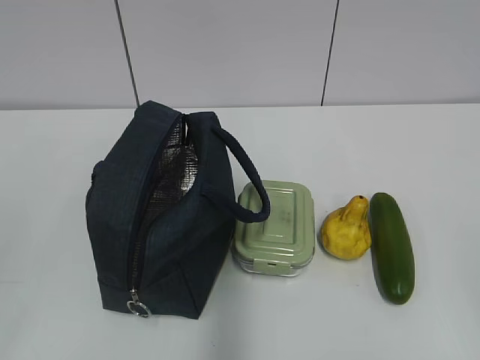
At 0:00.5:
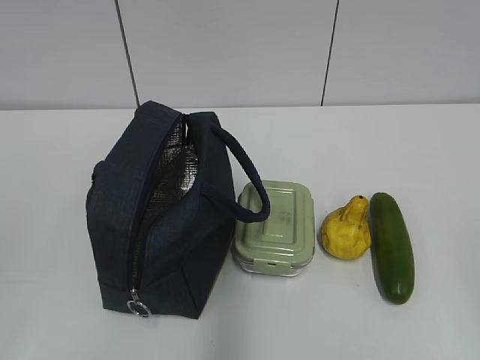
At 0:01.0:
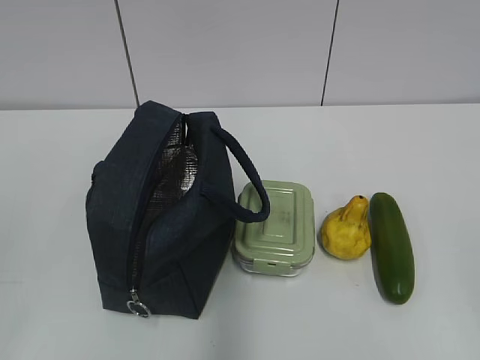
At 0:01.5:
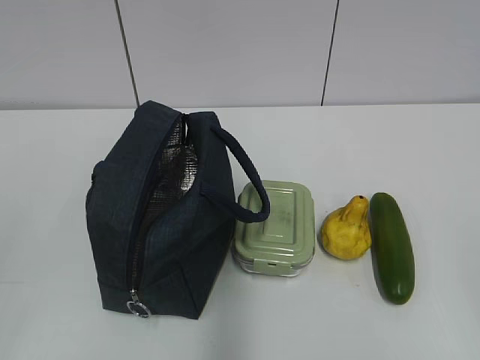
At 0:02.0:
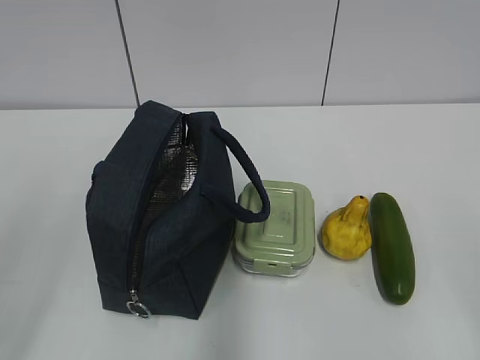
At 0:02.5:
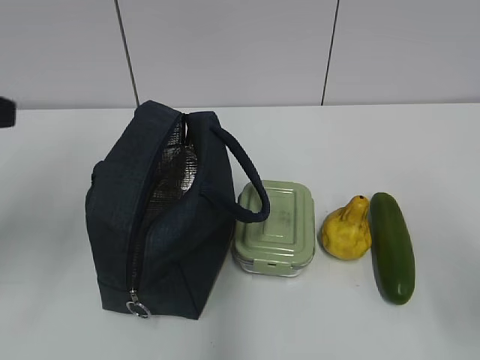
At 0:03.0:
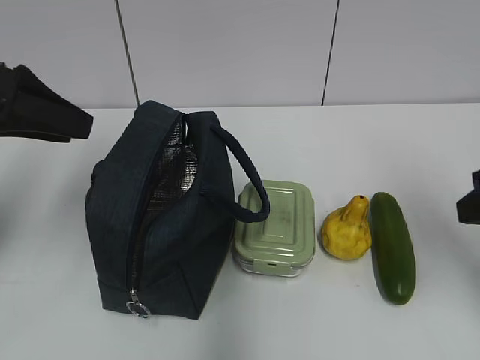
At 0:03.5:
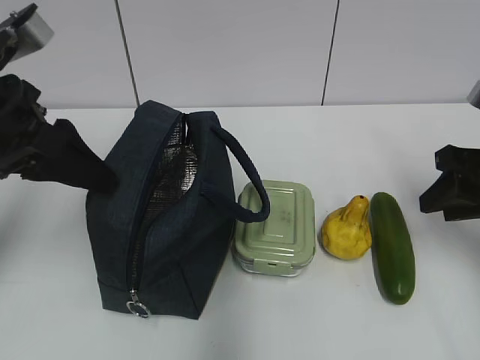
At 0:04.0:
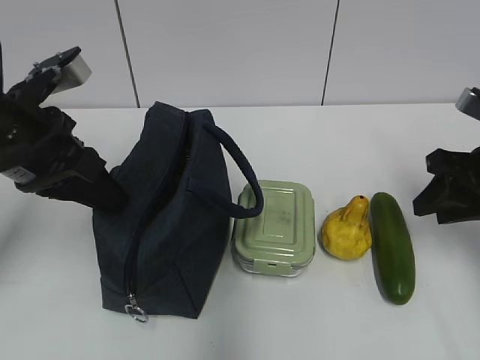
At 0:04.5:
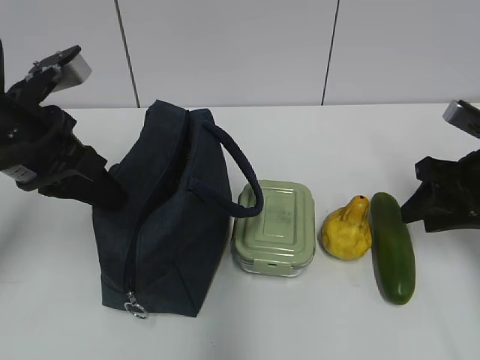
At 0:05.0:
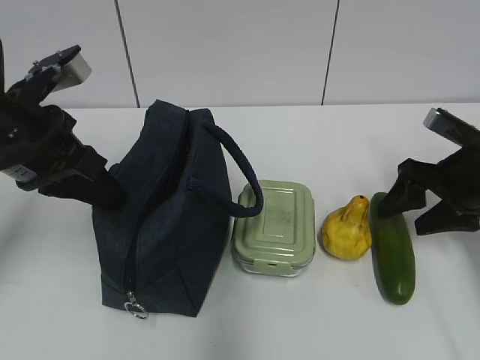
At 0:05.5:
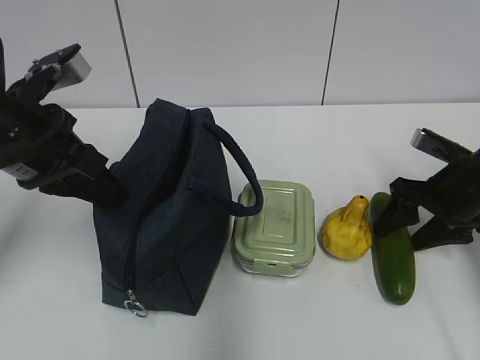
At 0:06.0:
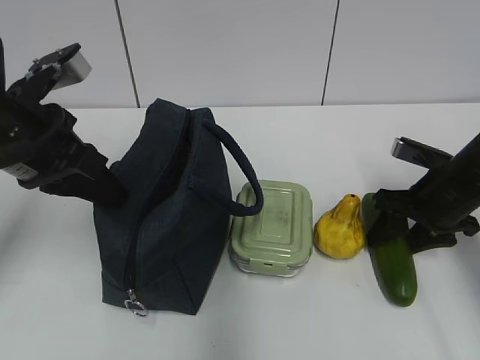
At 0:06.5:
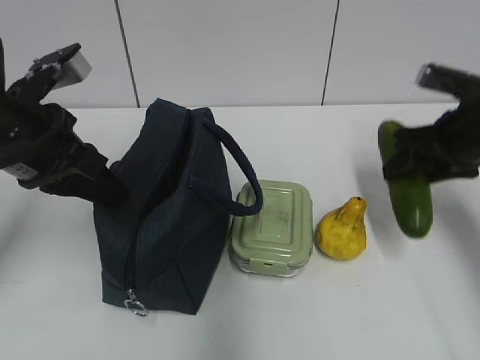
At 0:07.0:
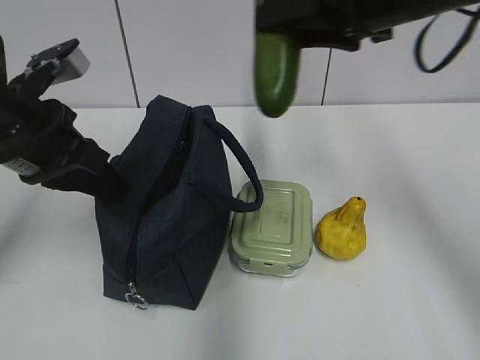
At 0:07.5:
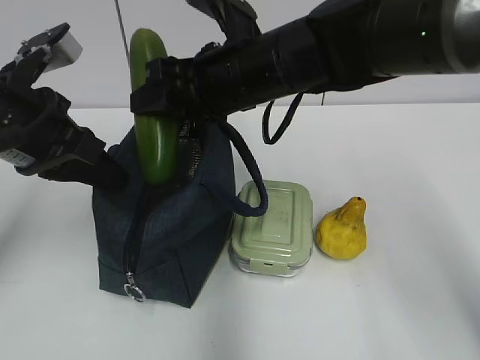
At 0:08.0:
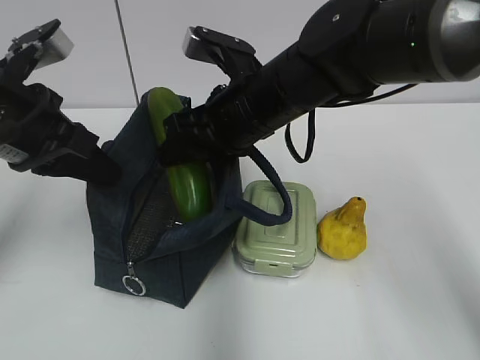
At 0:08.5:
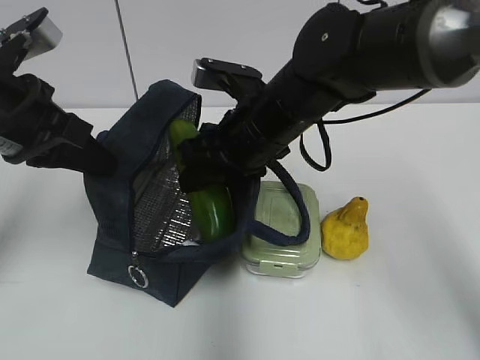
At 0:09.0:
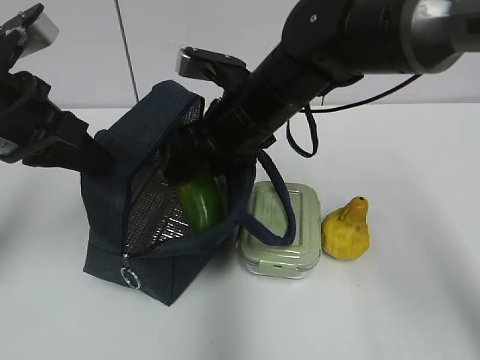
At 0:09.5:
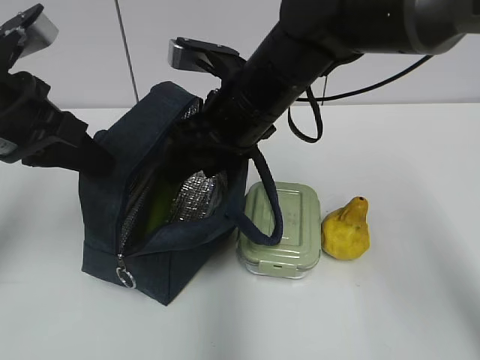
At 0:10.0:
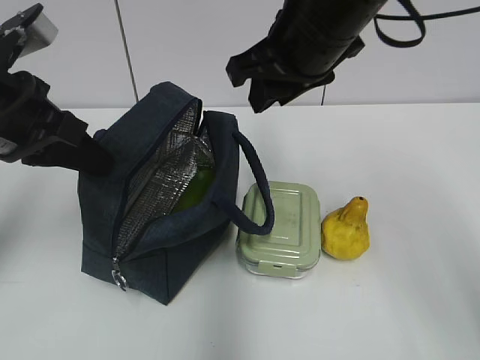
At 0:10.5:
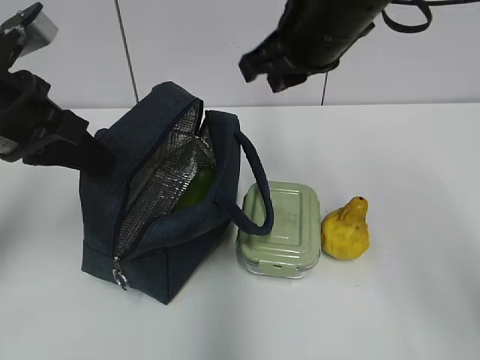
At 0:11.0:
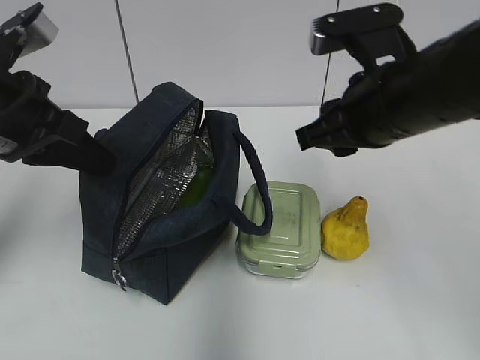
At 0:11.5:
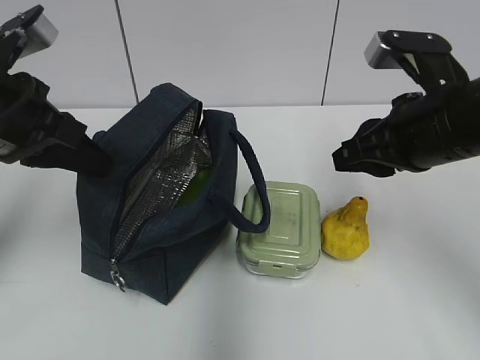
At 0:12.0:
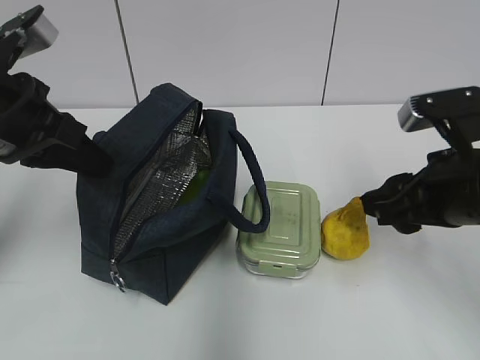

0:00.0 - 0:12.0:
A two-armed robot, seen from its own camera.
Step, 0:00.0 - 0:03.5: Grab the lunch bag with your left hand.
Step, 0:04.5 - 0:06.0: Grab the cucumber with your right hand.
Step, 0:06.5 - 0:09.0: Place it into the bag with your right hand.
0:02.0 - 0:04.0: The grippers both shift forward by approximately 25 cm. The left gripper closes its fingers.
0:04.0 - 0:06.0: The right gripper heads downward, covering about 10 cm.
0:06.0 - 0:08.0: The right gripper goes roughly 25 cm to the left and upward.
0:08.0 - 0:10.0: The right gripper is displaced upward and to the right by about 10 cm.
0:10.0 - 0:12.0: The right gripper moves to the right, downward and backward, approximately 20 cm.

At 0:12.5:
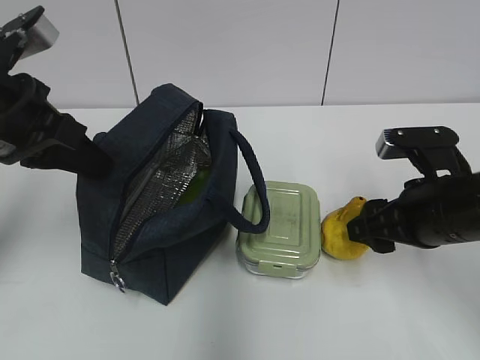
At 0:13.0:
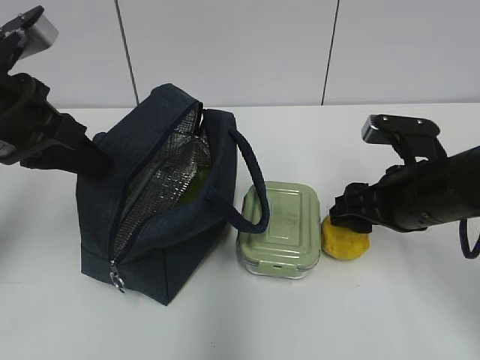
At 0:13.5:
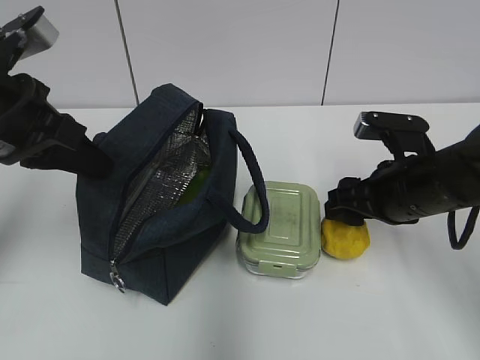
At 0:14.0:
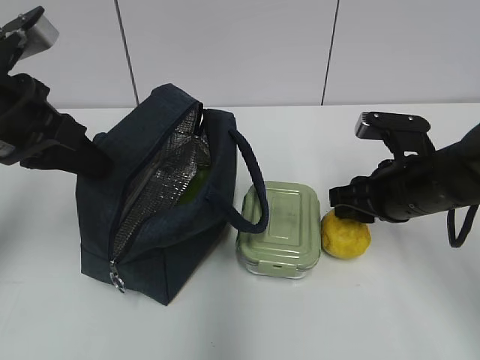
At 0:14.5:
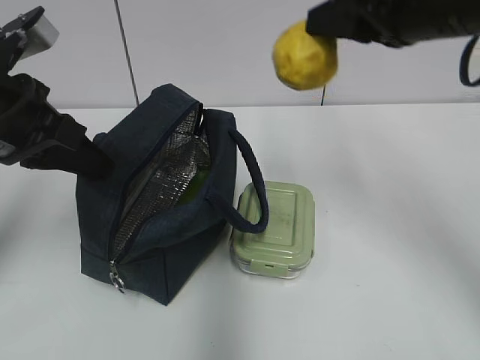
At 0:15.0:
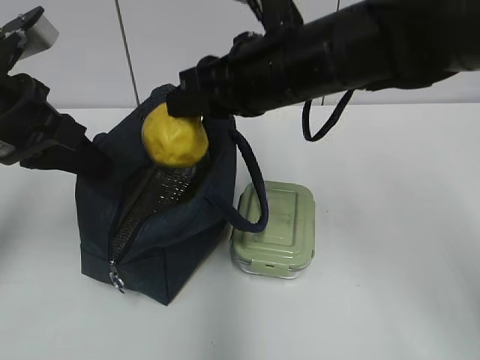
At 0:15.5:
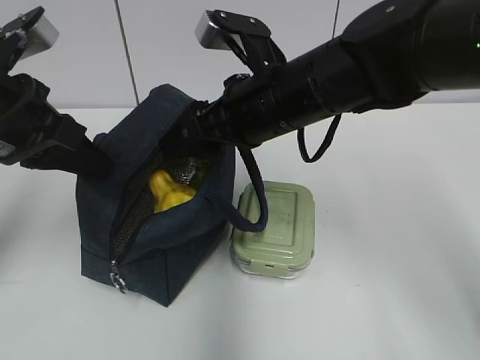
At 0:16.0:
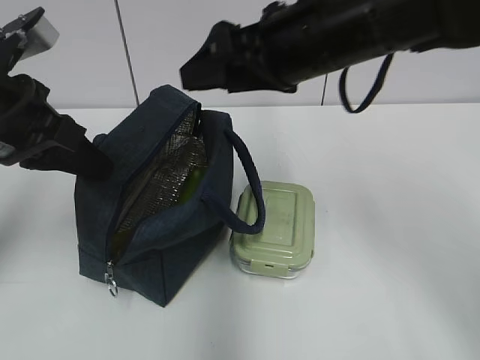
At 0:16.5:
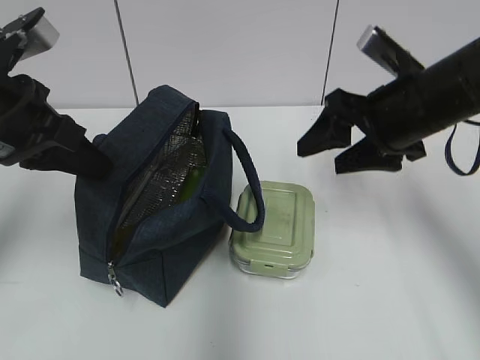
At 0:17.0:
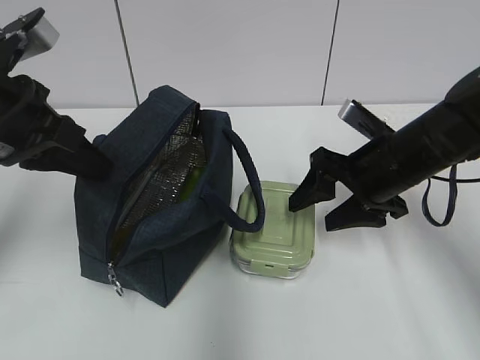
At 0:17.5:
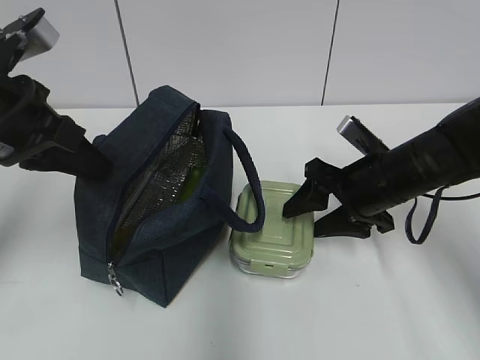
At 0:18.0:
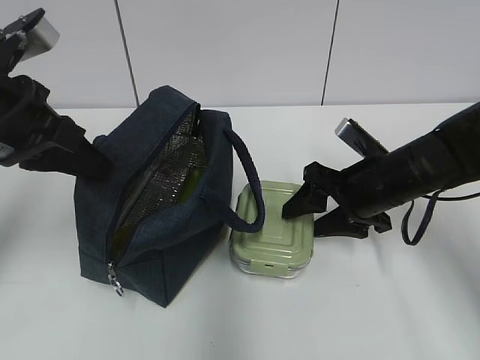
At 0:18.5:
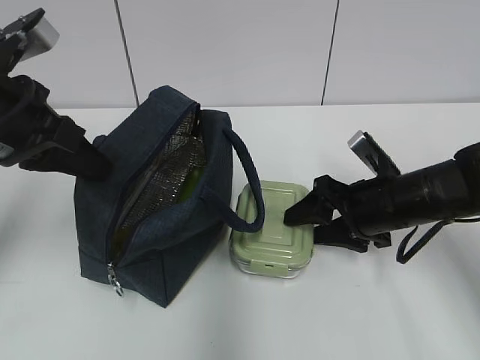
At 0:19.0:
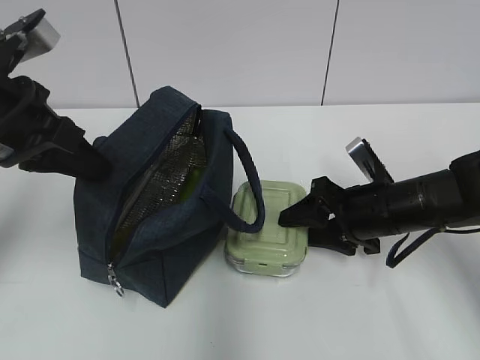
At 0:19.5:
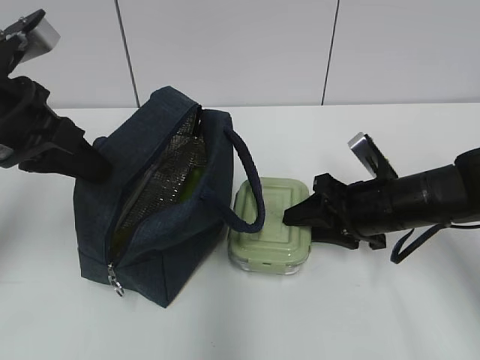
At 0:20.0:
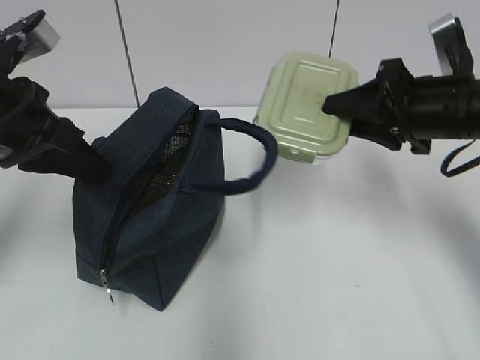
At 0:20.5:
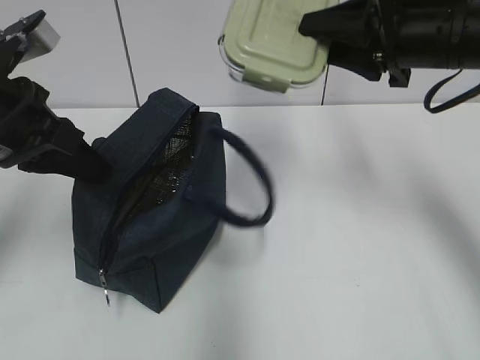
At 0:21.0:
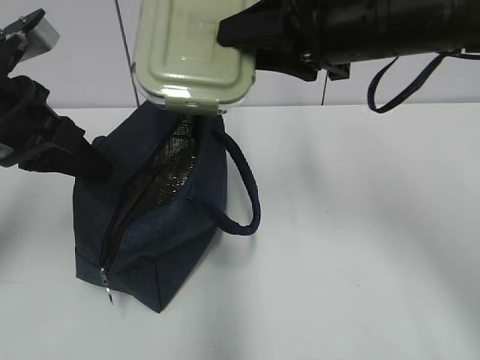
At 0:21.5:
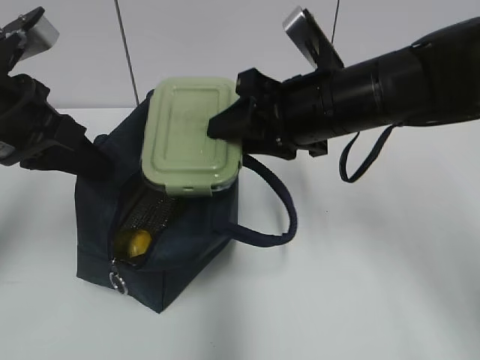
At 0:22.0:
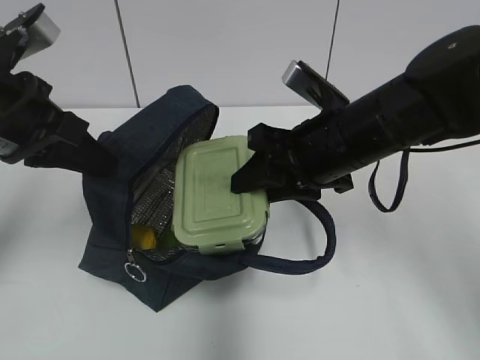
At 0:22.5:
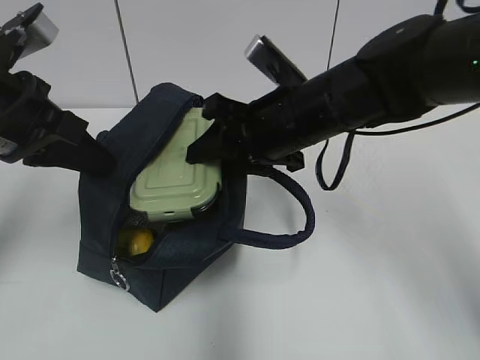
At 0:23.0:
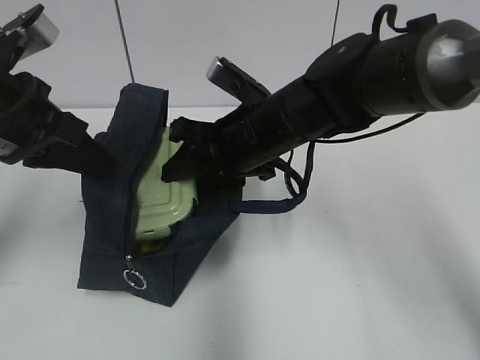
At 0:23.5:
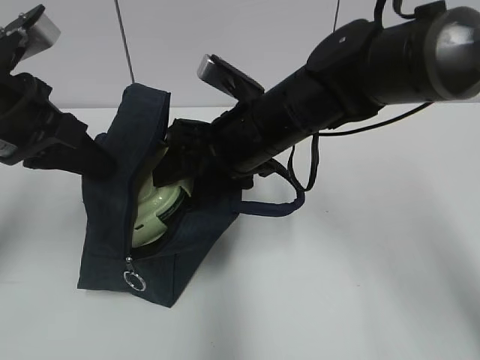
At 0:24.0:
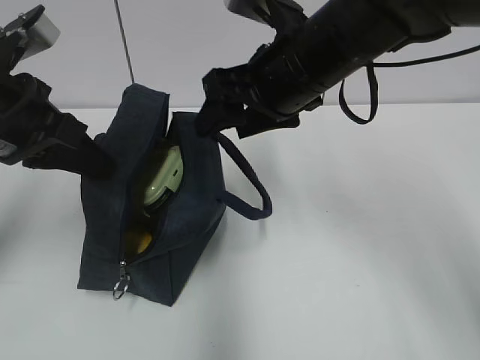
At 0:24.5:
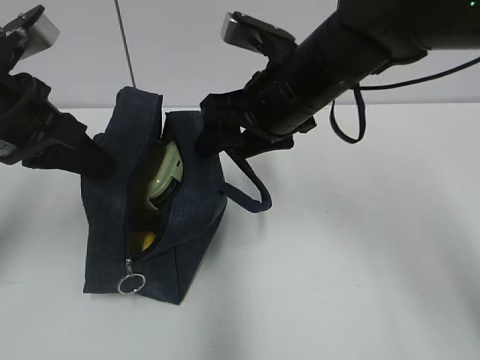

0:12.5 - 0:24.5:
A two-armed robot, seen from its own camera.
Step, 0:14.5 - 0:15.5: Place it into the bag with your right hand.
Step, 0:16.0 - 0:19.5: Grab the lunch box with your right hand.
0:12.5 - 0:14.5: The right gripper shifts about 20 cm upward, and closes its fingers.
0:14.5 - 0:16.5: The right gripper moves downward, some 10 cm, reaches some 10 cm to the left, then returns, and opens its fingers.
0:16.5 - 0:18.5: The right gripper travels downward by about 10 cm.
0:18.5 - 0:20.5: The right gripper goes approximately 20 cm upward.
0:20.5 - 0:22.5: The right gripper goes some 15 cm to the left and downward.

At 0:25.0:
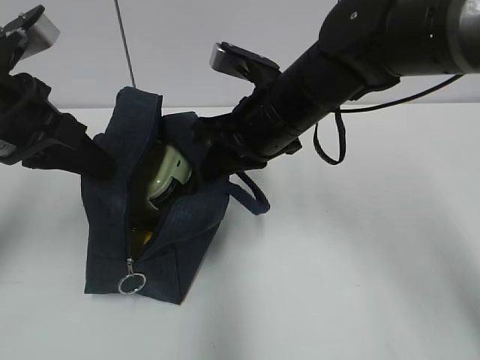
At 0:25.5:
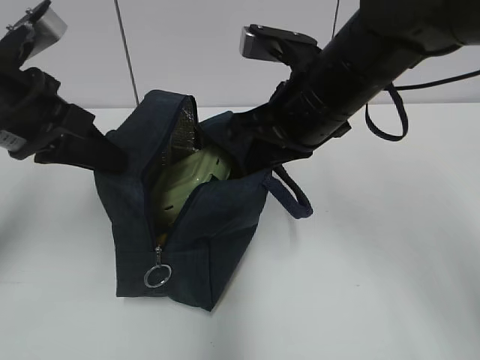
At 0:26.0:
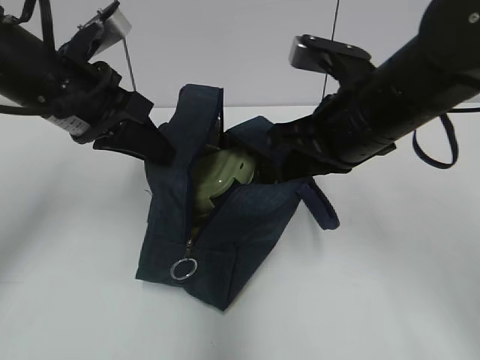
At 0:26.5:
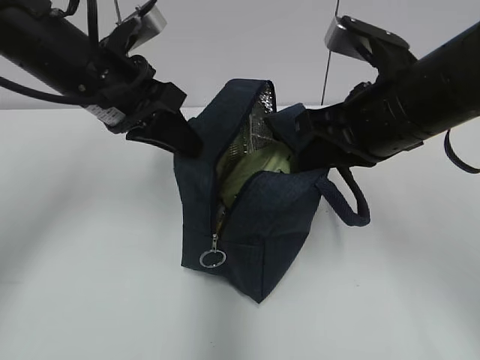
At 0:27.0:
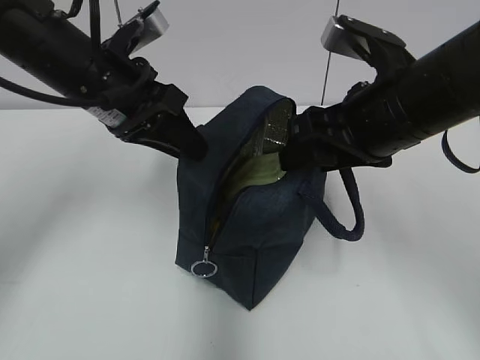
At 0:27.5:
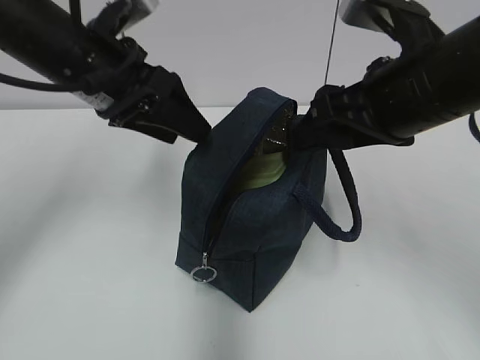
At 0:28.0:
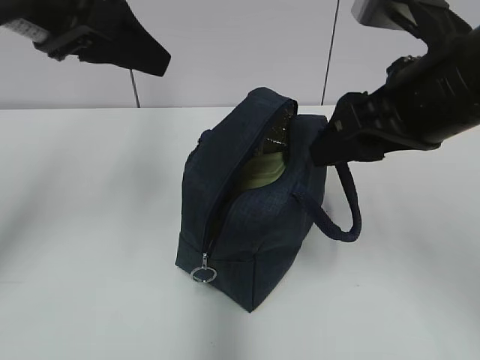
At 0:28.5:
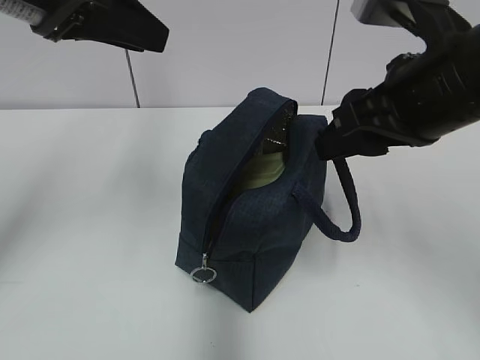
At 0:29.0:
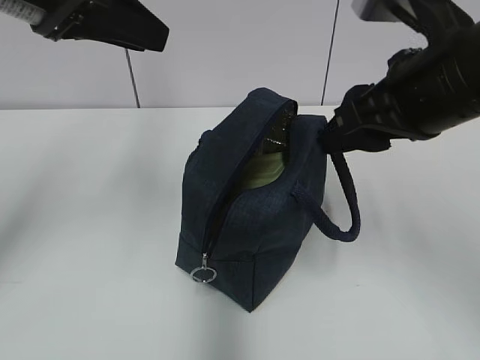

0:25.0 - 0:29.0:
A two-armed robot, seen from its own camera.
Step, 0:25.0 - 0:27.0: Move the lunch bag to the right.
0:25.0 - 0:27.0: The left gripper shifts approximately 10 cm to the right and forward, and opens up. The right gripper heads to the right and backward, covering some 10 cm, and opens.
0:27.0 - 0:29.0: The left gripper heads upward and backward, covering some 10 cm, and opens and closes again. The right gripper ends up roughly 5 cm from where it was.
